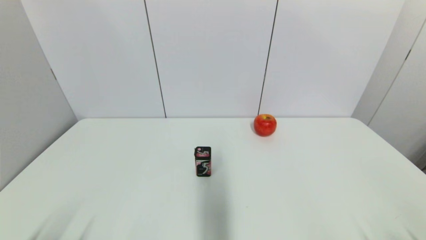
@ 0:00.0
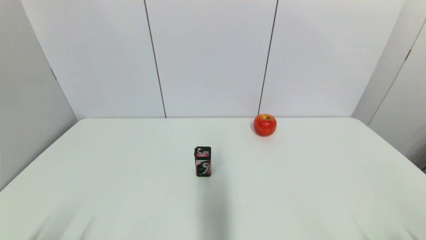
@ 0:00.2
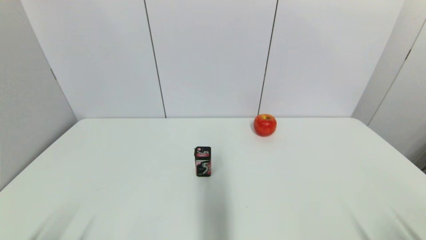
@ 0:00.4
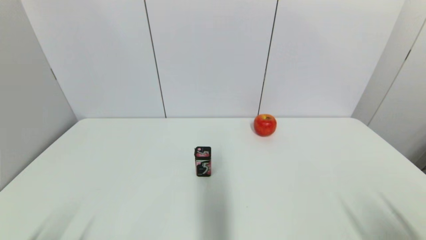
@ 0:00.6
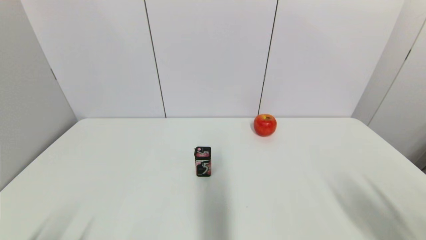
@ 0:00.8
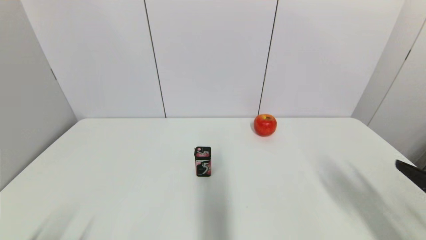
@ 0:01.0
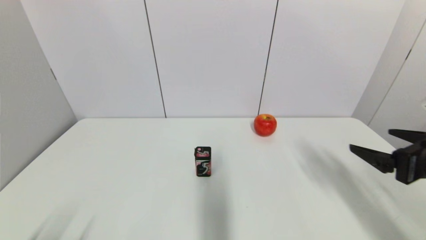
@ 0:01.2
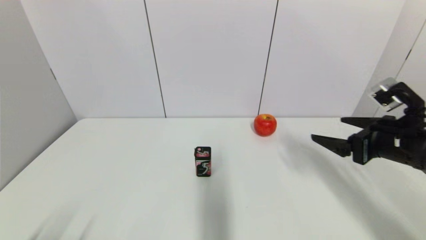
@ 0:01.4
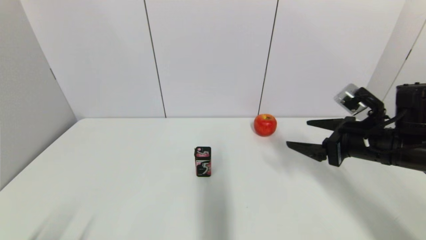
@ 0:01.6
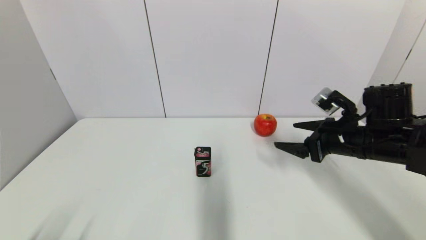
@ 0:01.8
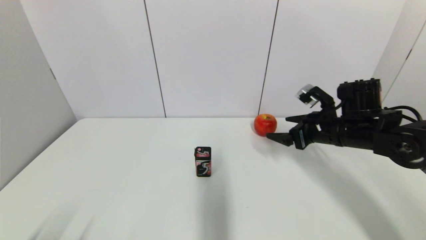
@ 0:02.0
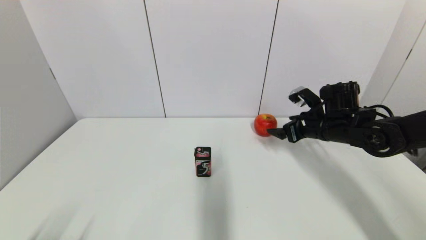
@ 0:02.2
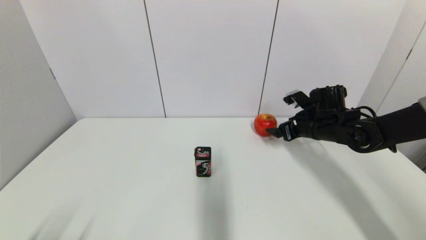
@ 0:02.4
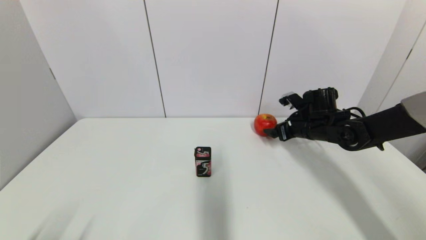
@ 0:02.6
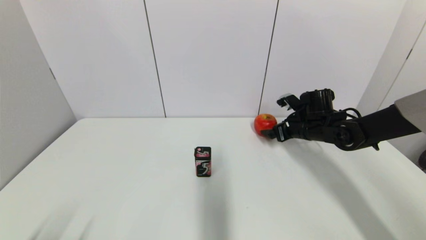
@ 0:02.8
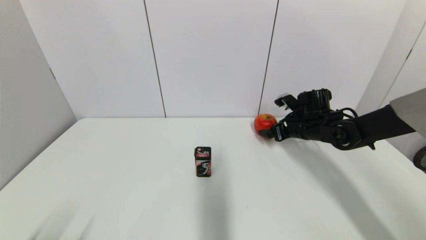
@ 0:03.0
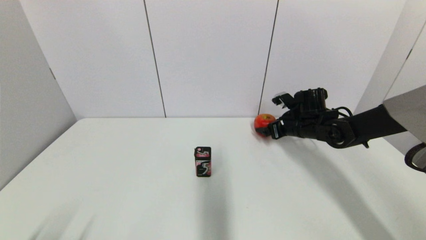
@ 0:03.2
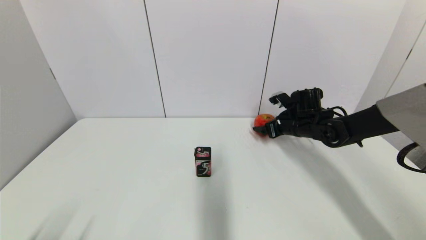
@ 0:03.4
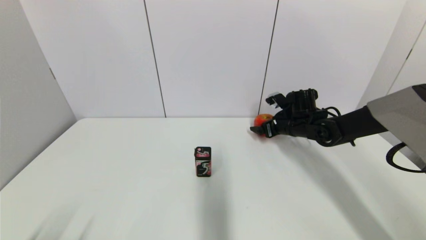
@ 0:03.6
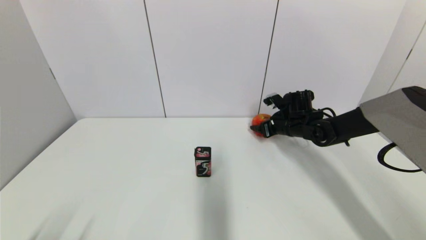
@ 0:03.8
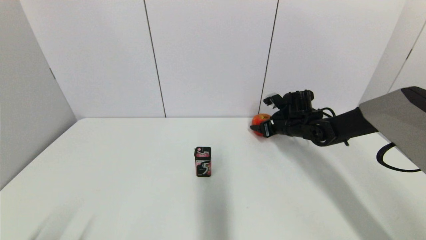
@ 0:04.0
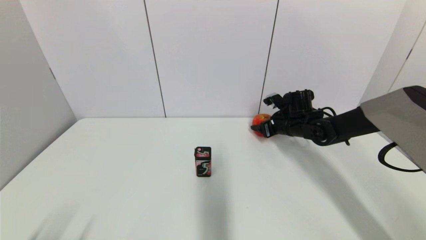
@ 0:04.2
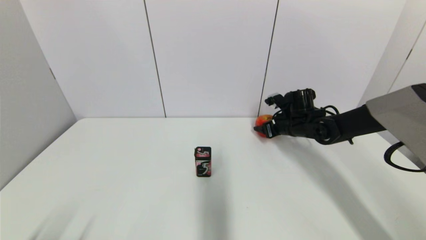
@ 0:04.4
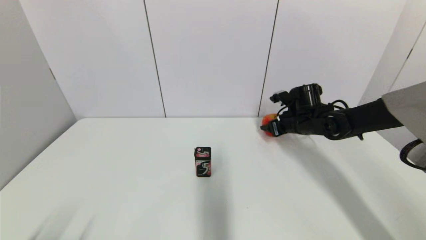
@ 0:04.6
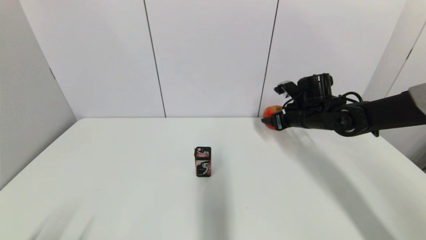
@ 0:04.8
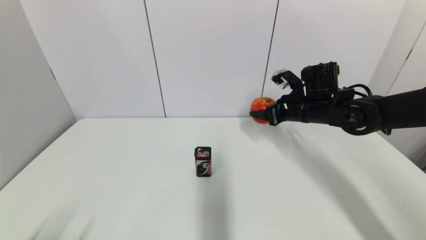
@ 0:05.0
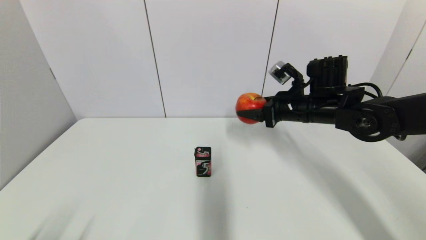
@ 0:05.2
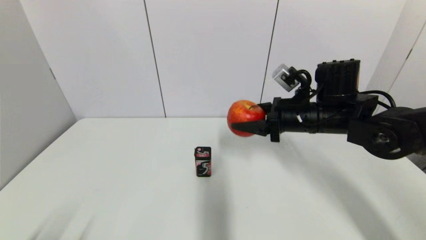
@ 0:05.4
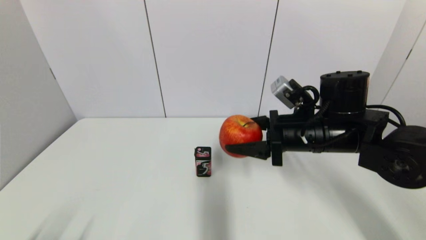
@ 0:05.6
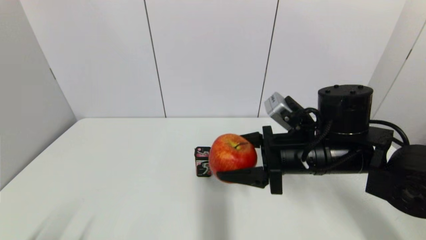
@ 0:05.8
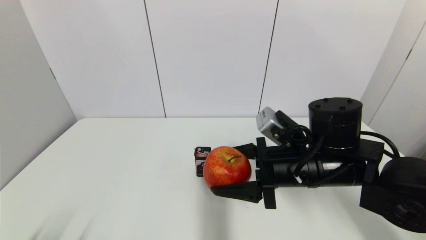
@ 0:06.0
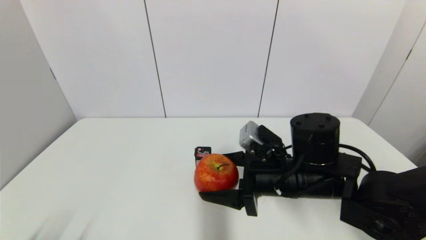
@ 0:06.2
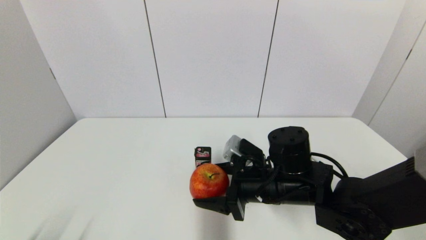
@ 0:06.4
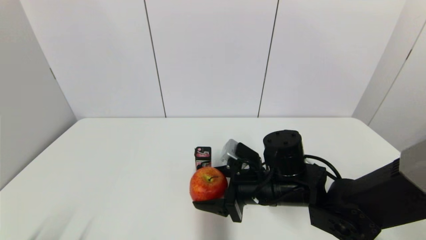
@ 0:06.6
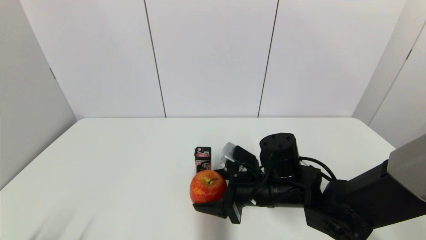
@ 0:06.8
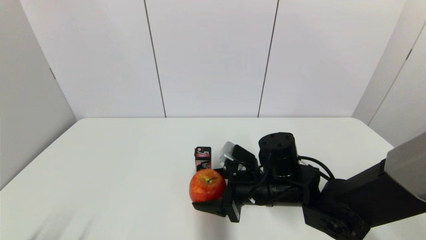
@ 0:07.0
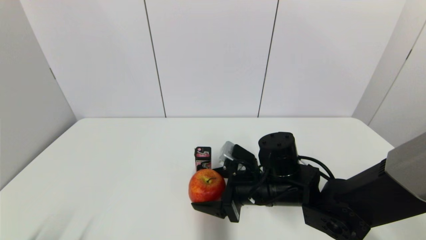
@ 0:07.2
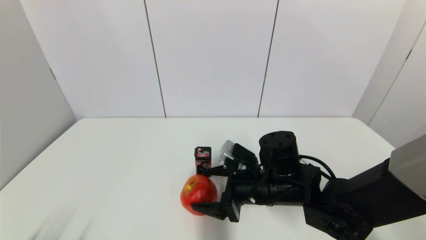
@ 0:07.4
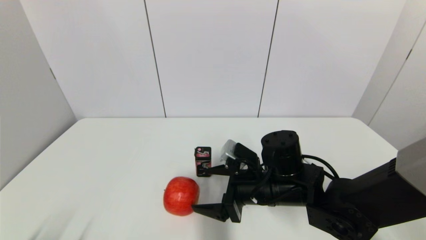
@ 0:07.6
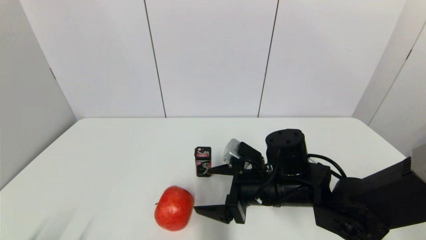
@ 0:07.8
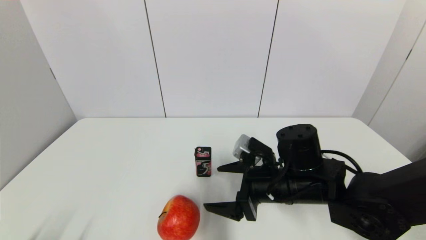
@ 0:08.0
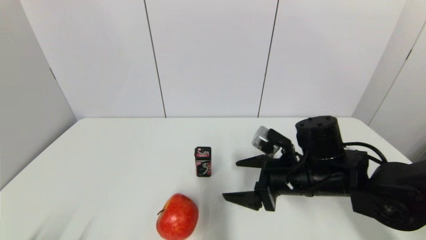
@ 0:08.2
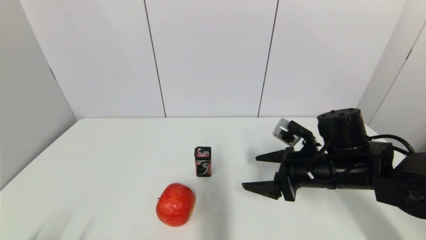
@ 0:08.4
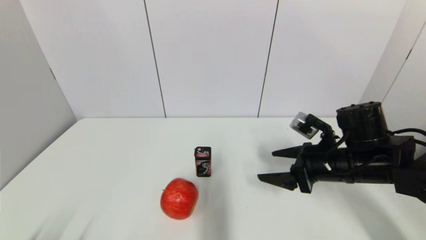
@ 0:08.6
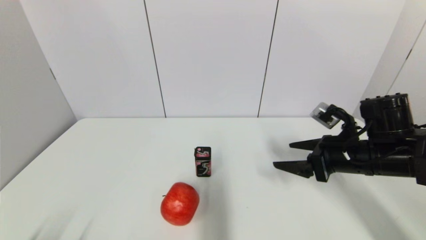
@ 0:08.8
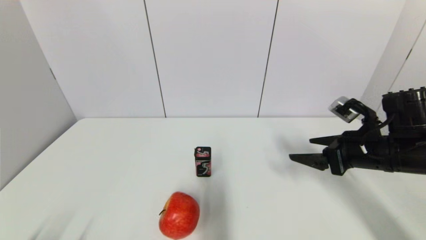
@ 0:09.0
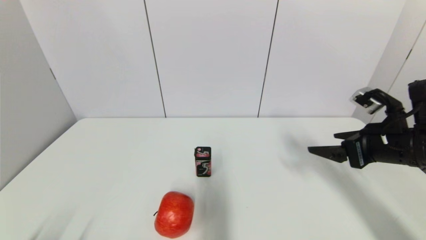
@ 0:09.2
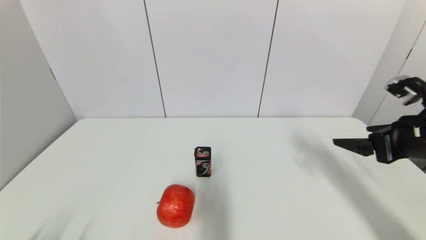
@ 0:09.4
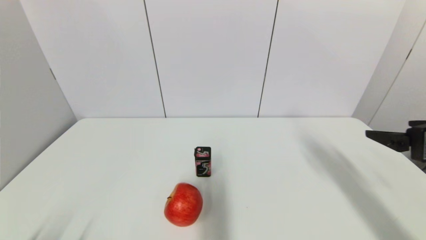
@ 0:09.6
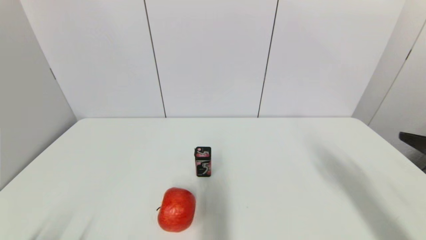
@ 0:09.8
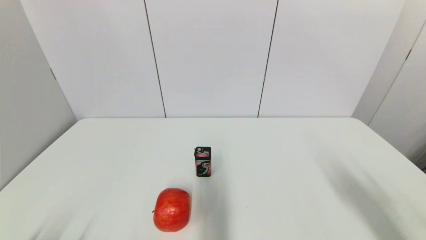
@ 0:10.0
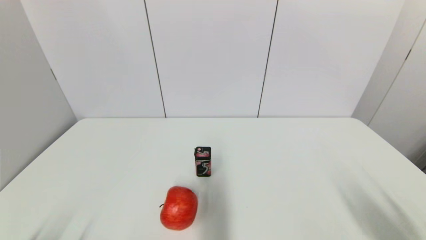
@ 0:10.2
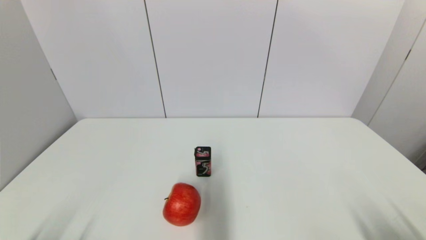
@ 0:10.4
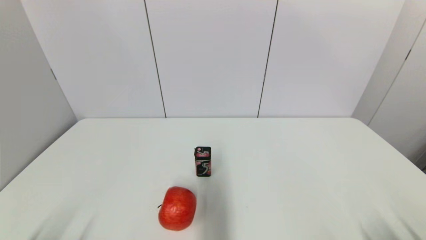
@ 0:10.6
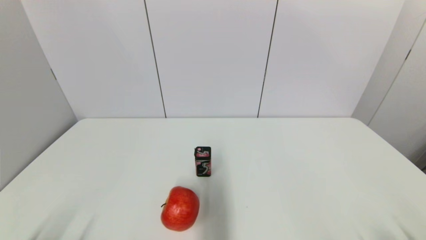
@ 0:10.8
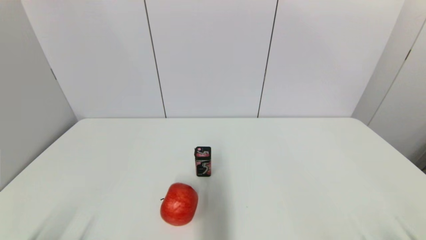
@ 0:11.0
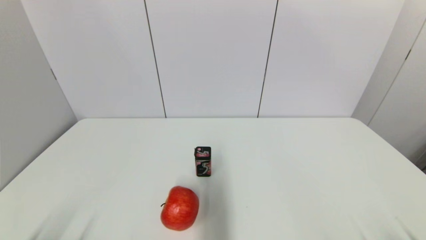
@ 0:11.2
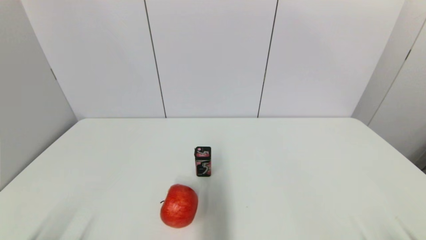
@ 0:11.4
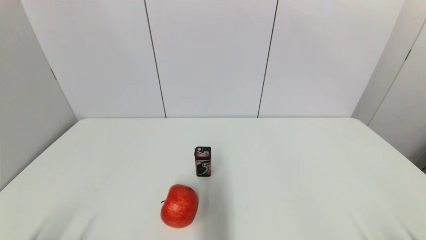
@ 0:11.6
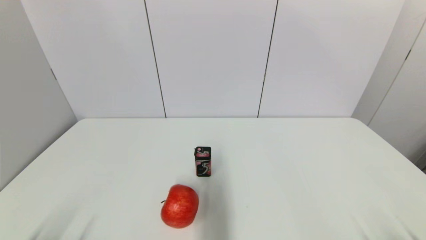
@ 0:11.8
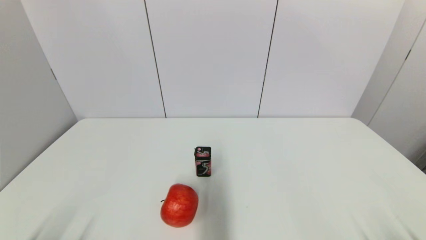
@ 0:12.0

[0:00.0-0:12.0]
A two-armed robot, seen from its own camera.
Task of the whole recording: put the apple in the designated position.
Step, 0:01.0 to 0:03.8: Grasp the apple with right gripper.
Step, 0:04.0 to 0:08.0: Place the apple on the table with right gripper.
0:00.0 to 0:01.6: The right gripper is displaced forward and upward by about 30 cm.
0:01.6 to 0:03.0: The right gripper travels forward and downward by some 20 cm.
0:03.0 to 0:04.4: The right gripper closes.
0:04.4 to 0:06.0: The right gripper heads backward and to the left, covering some 20 cm.
0:06.0 to 0:07.6: The right gripper travels downward by some 5 cm, and opens.
0:07.6 to 0:09.0: The right gripper is displaced to the right and upward by about 20 cm.
0:09.0 to 0:10.4: The right gripper goes approximately 25 cm backward.
0:10.4 to 0:12.0: The right gripper shifts about 5 cm downward.
